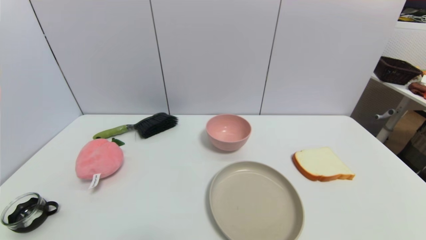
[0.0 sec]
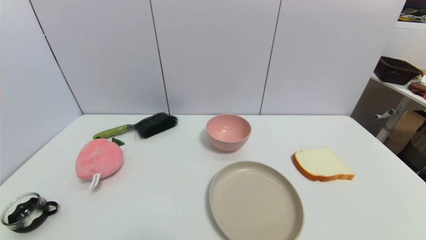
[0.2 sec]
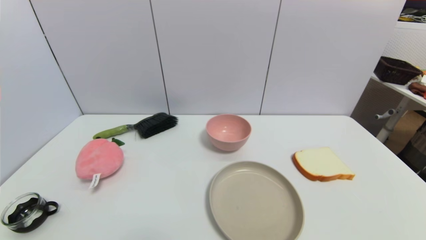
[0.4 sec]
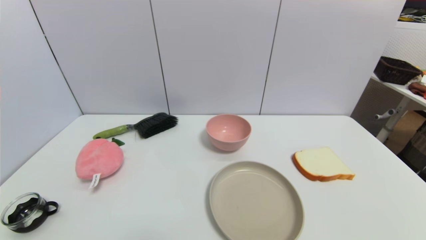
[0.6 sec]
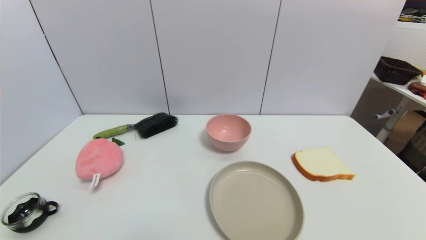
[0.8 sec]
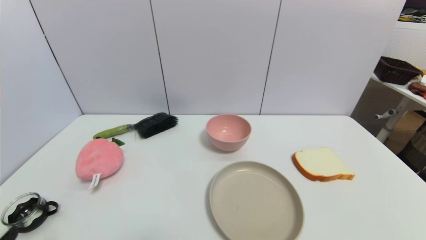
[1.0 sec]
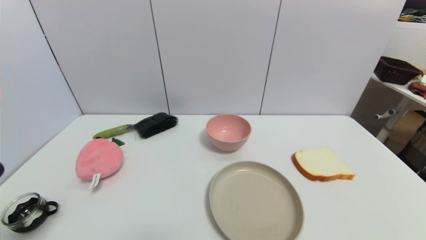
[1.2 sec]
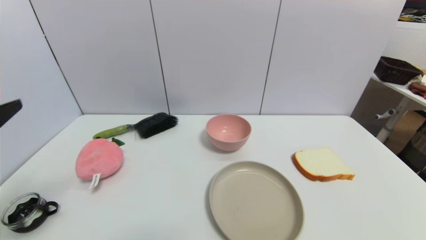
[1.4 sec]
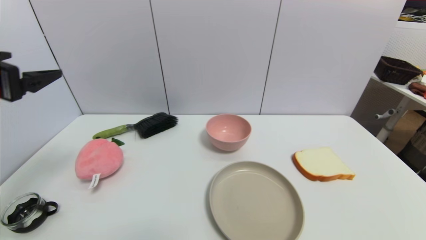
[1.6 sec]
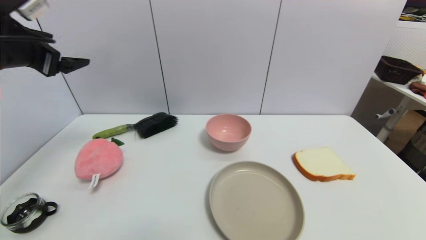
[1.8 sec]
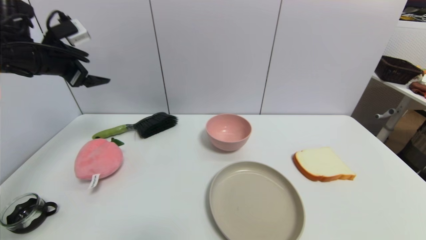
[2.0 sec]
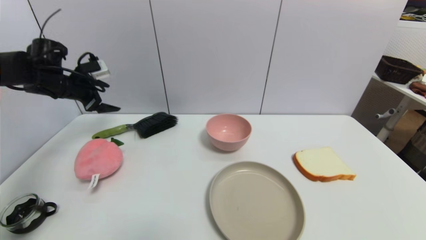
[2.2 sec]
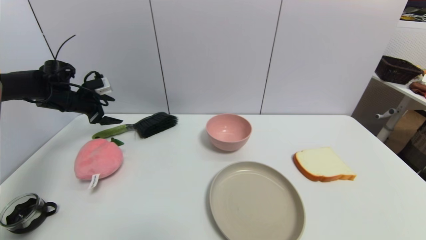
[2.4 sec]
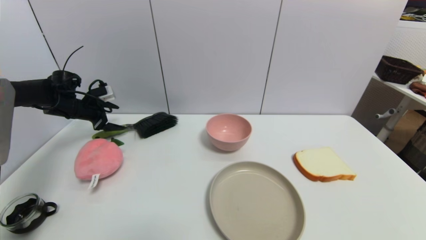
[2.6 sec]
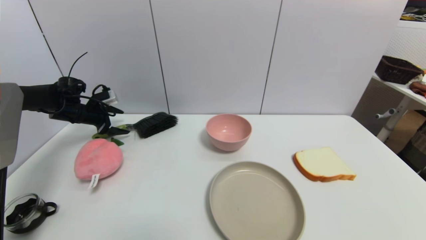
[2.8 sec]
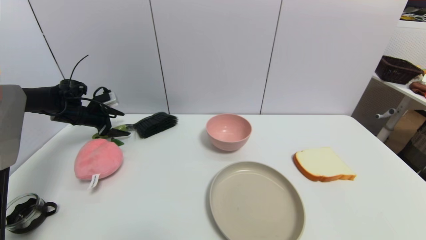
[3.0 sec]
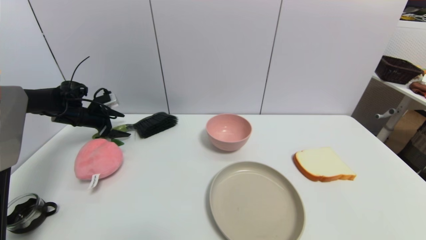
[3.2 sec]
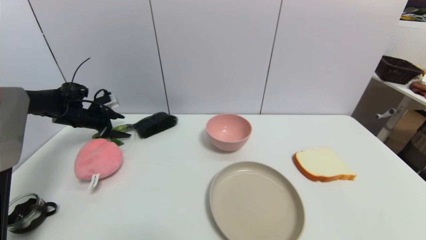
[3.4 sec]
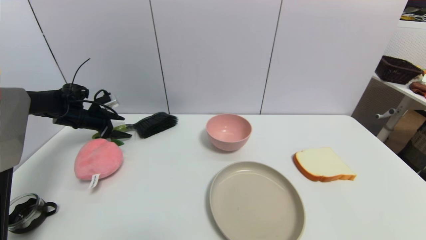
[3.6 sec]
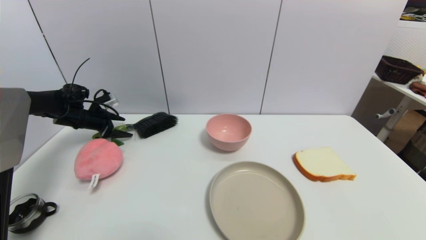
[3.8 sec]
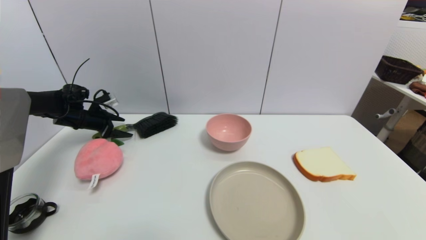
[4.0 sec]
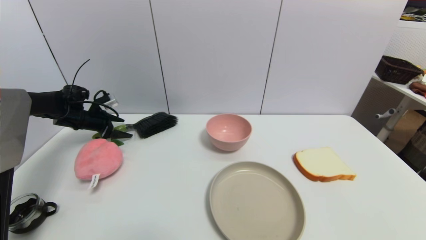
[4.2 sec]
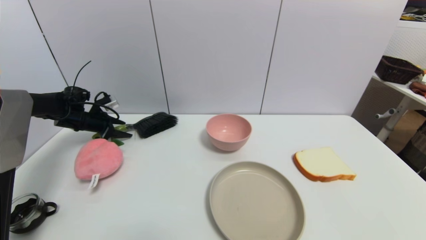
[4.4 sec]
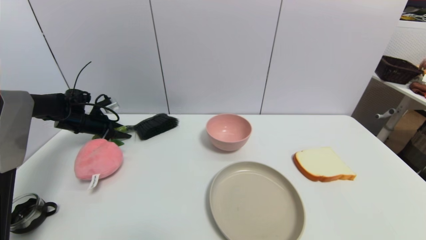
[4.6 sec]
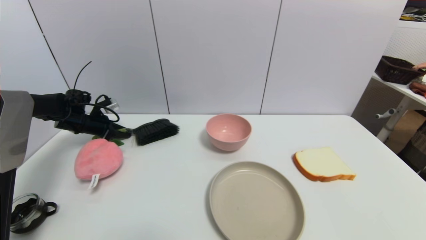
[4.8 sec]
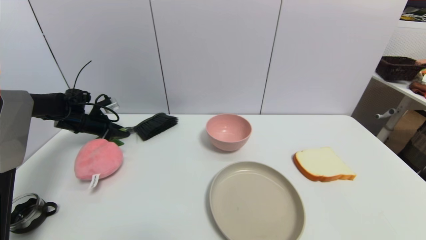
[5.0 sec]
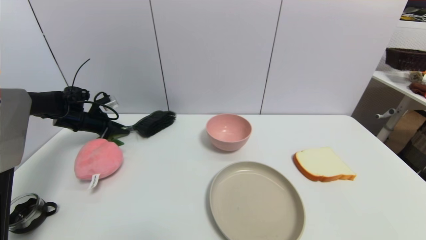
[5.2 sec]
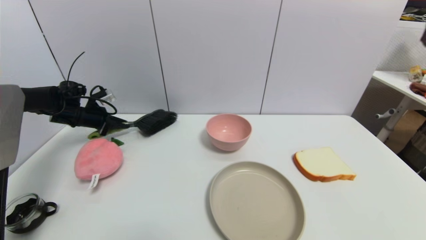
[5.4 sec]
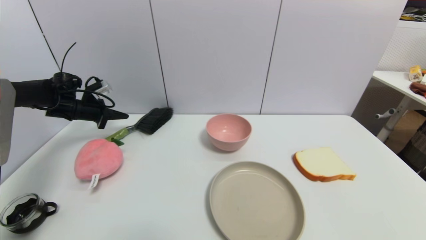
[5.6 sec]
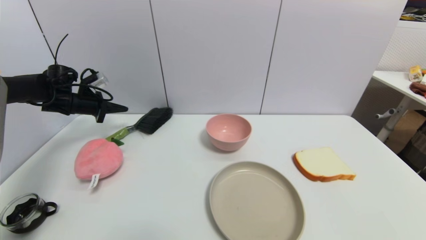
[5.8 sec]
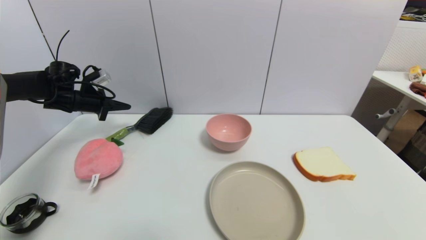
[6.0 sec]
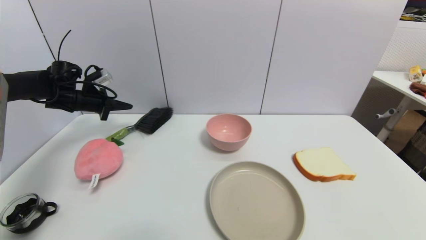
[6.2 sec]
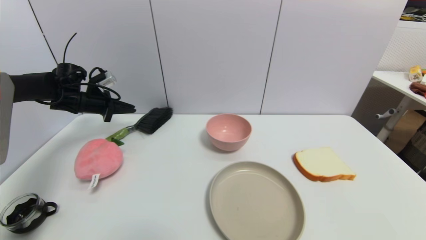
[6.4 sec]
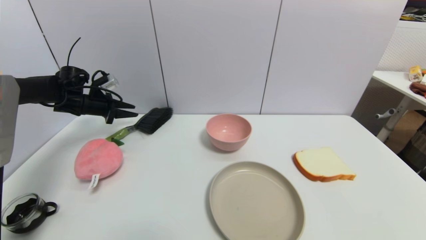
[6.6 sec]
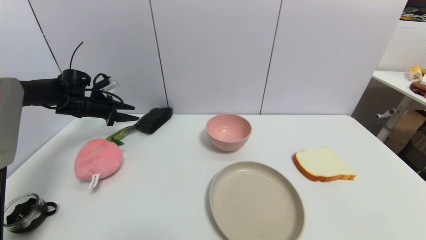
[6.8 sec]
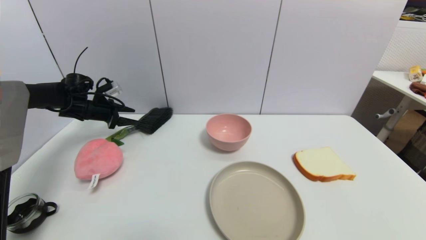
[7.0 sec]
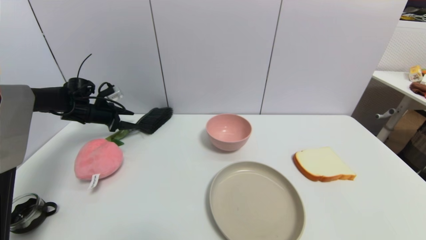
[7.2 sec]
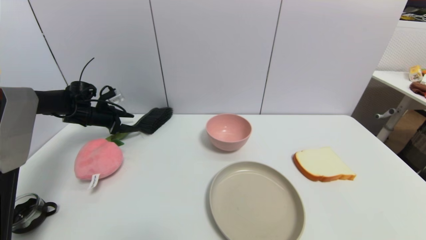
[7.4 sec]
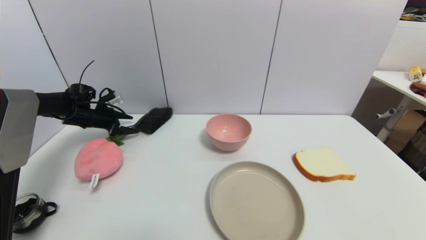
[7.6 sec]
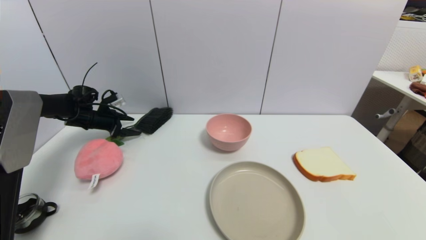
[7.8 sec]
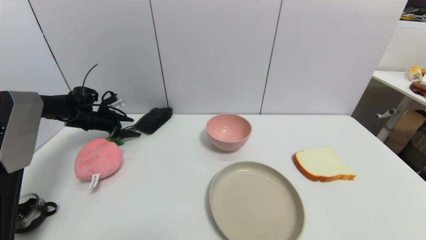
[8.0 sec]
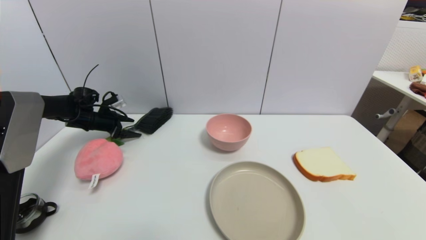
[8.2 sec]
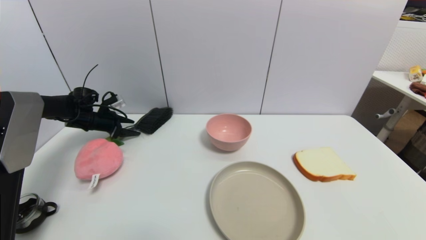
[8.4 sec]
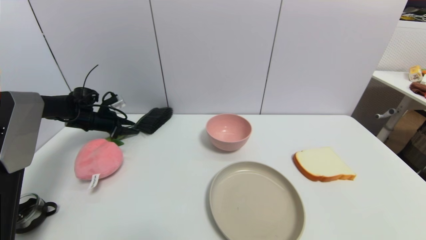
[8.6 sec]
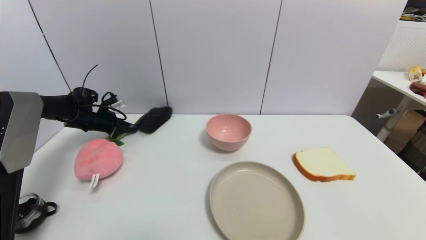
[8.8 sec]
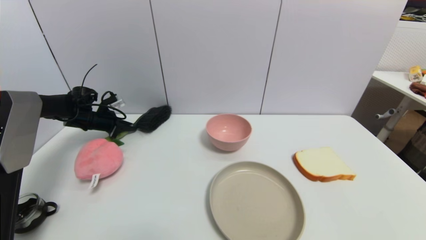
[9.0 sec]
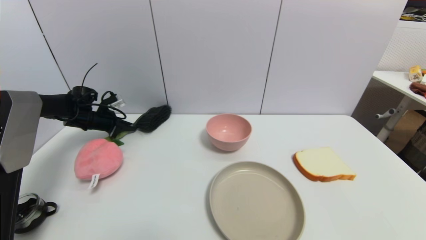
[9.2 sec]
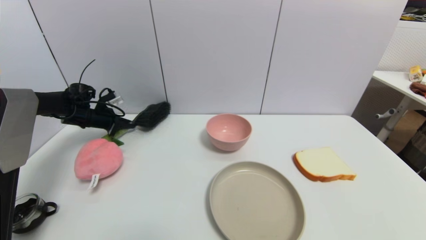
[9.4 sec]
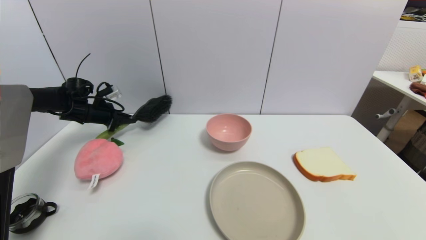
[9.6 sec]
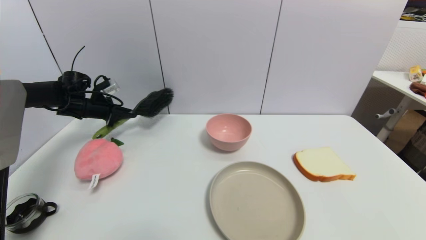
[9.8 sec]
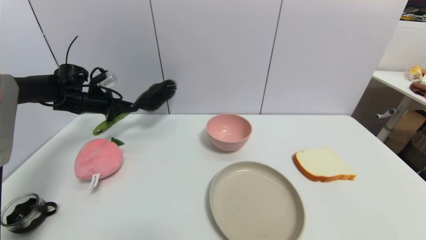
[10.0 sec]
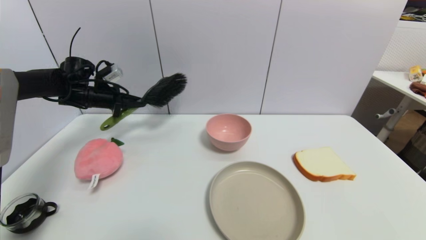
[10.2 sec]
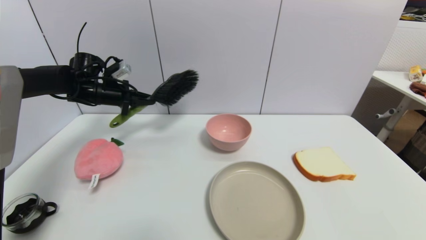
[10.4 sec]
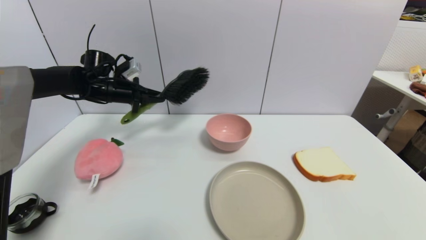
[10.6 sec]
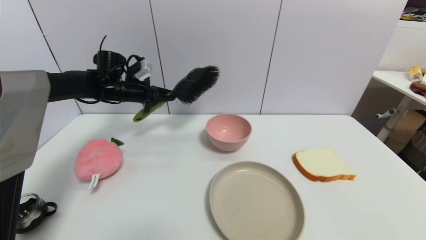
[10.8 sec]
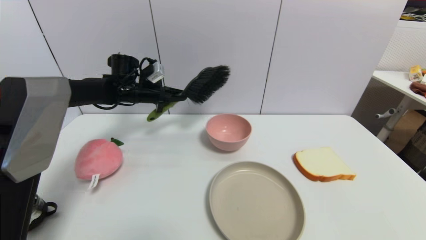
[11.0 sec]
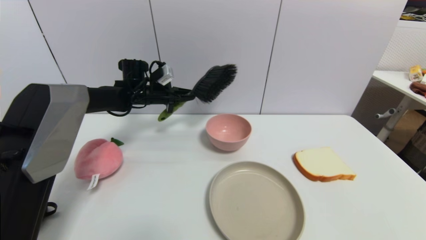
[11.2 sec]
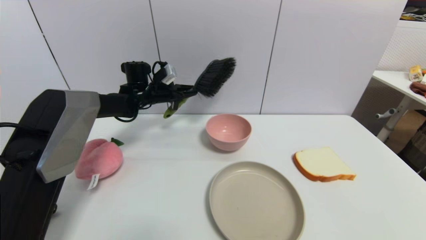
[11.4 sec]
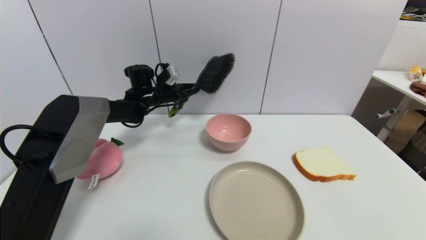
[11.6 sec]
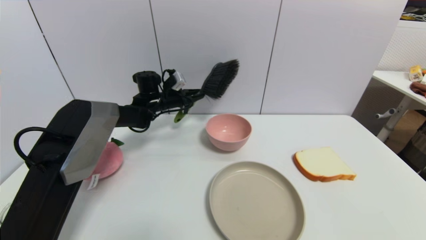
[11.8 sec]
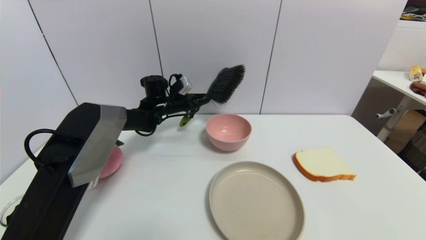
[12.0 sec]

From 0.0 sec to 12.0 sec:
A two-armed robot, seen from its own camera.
Task of the whole recording: put the brush in the designated position.
Step, from 1.0 sec to 9.2 sec: Grasp the brush with left gripper.
From 0.0 sec to 1.6 sec: The left gripper travels upward and forward by approximately 35 cm.
From 1.6 sec to 3.0 sec: The left gripper shifts roughly 35 cm forward and downward.
From 3.0 sec to 4.4 sec: The grippers stay close to where they were, moving slightly.
From 4.4 sec to 6.0 sec: The left gripper heads upward, covering about 10 cm, and closes.
From 6.0 sec to 7.6 sec: The left gripper shifts about 5 cm downward, and opens its fingers.
From 7.6 sec to 9.0 sec: The left gripper closes its fingers.
From 9.0 sec to 10.4 sec: The left gripper moves upward and to the right, approximately 15 cm.
From 10.4 sec to 12.0 sec: The left gripper shifts roughly 20 cm to the right and downward.

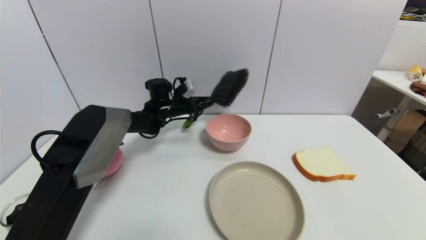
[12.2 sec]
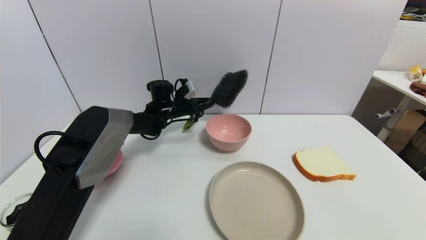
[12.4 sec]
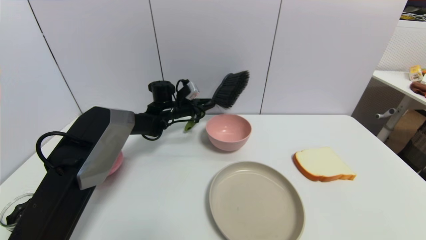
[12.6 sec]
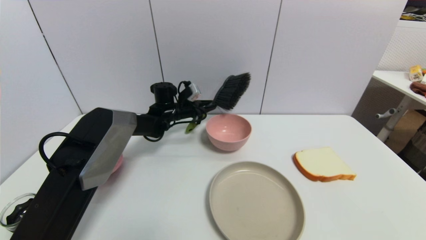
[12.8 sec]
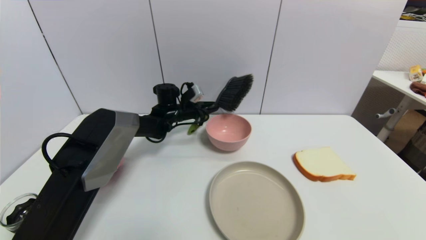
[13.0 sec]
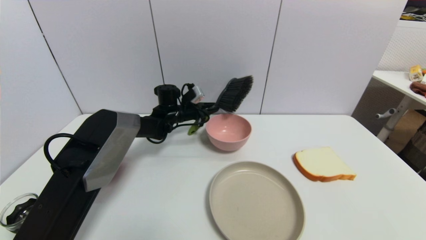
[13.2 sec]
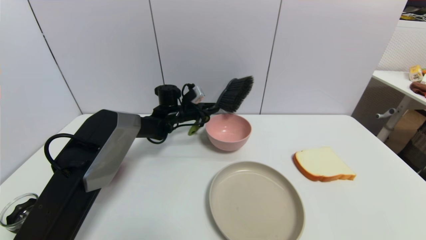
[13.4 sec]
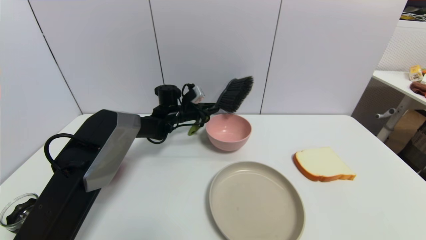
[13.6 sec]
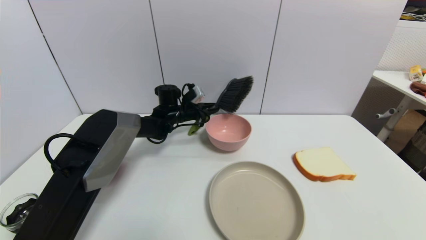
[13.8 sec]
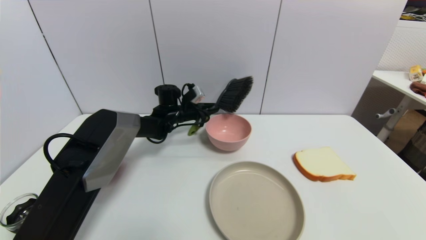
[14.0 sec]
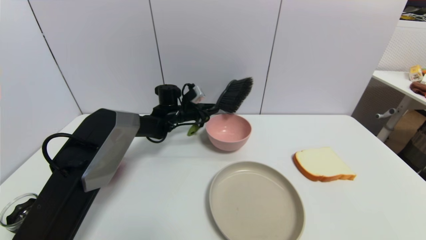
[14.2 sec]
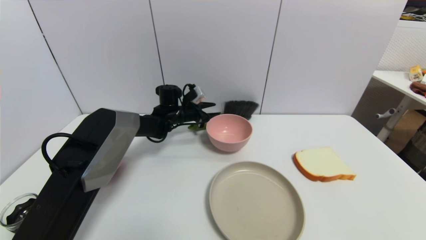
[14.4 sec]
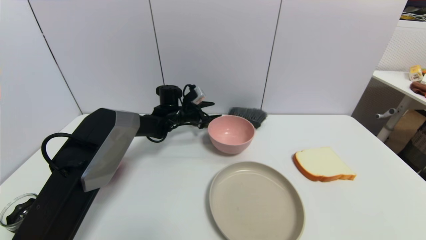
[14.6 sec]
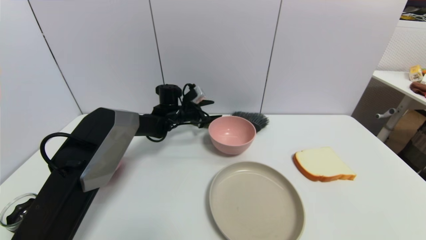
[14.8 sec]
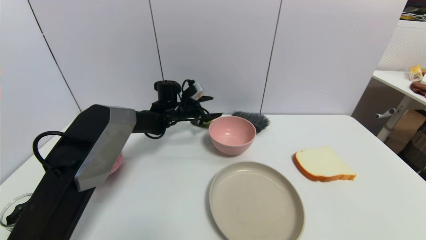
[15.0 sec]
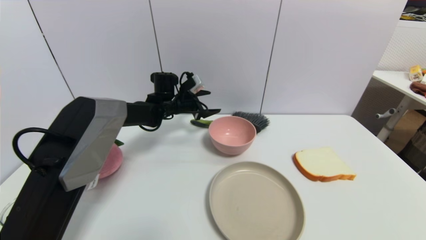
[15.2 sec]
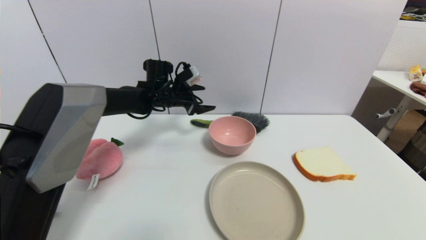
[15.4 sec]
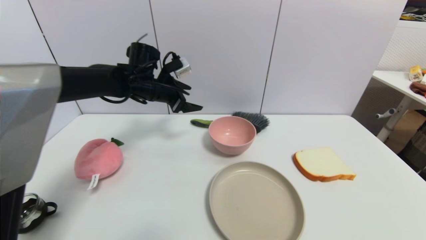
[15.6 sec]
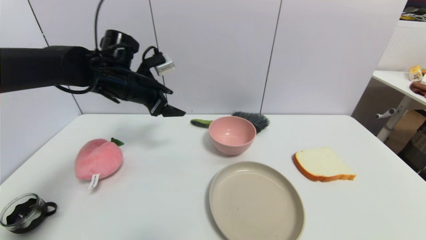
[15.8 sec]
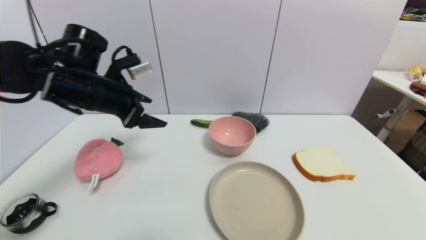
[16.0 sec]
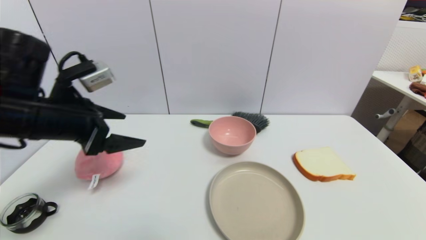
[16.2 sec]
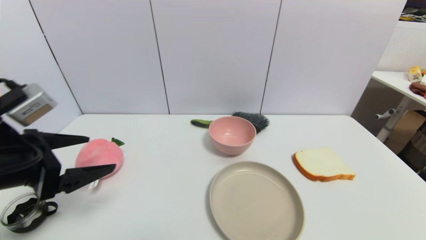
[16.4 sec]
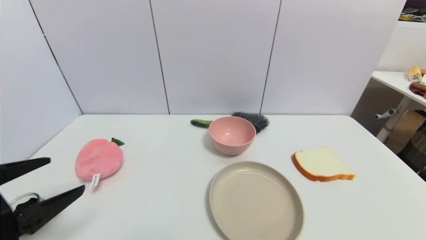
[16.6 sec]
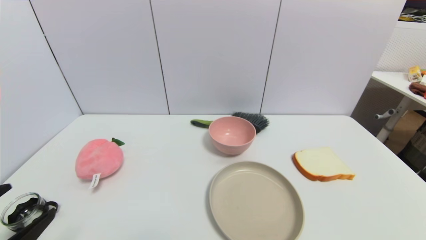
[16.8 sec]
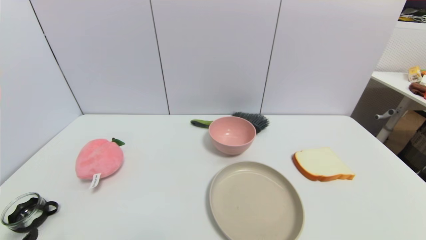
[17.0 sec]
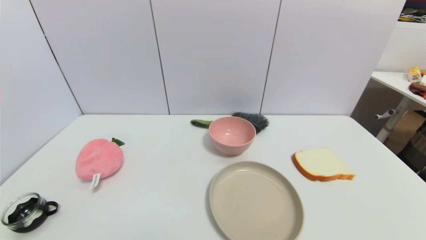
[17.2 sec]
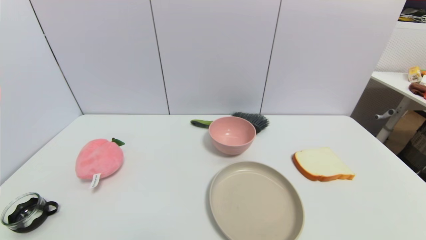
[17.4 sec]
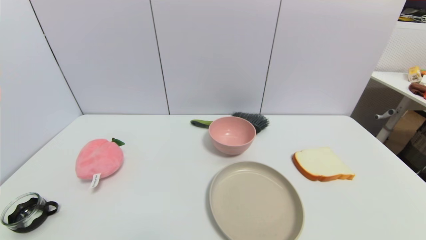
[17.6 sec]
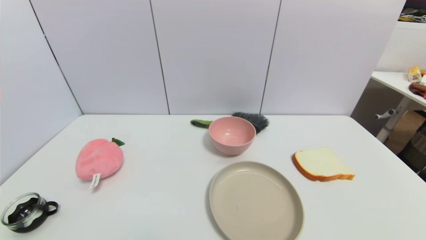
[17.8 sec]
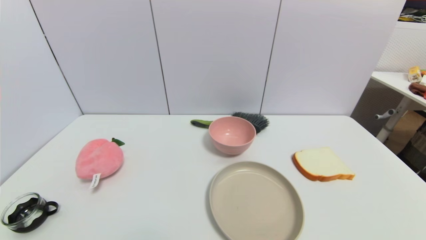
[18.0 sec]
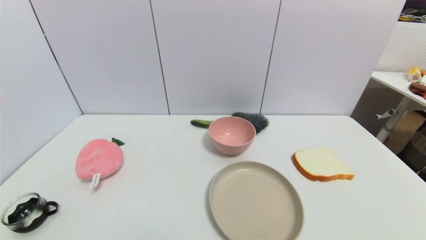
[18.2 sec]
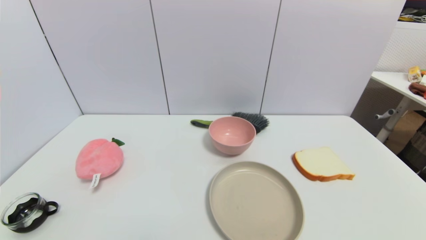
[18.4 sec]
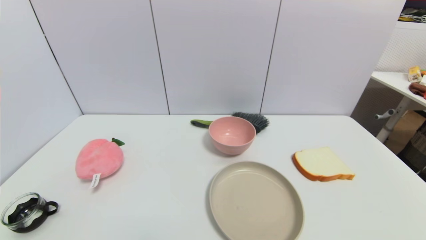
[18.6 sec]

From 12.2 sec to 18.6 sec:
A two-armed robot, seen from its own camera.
Task of the whole recording: put the brush in the designated position.
Step, from 12.2 sec to 14.4 sec: Place the brush on the table with left gripper.
From 12.2 sec to 13.8 sec: The grippers make only small movements.
From 13.8 sec to 15.4 sec: The left gripper goes about 10 cm upward, and opens its fingers.
From 15.4 sec to 17.0 sec: The left gripper shifts approximately 50 cm backward.
